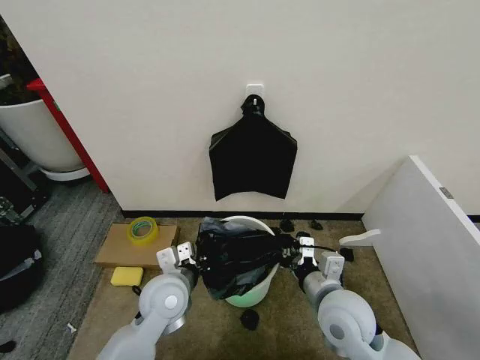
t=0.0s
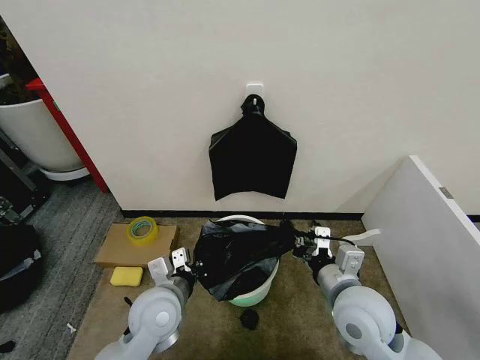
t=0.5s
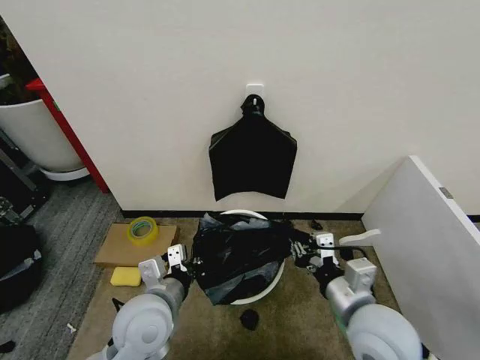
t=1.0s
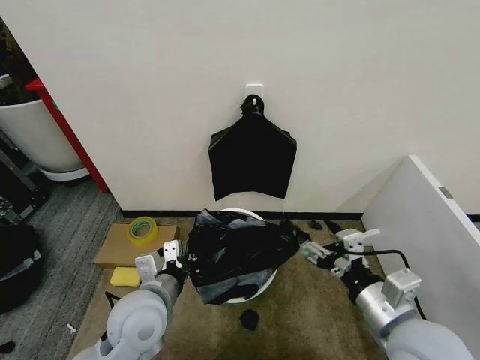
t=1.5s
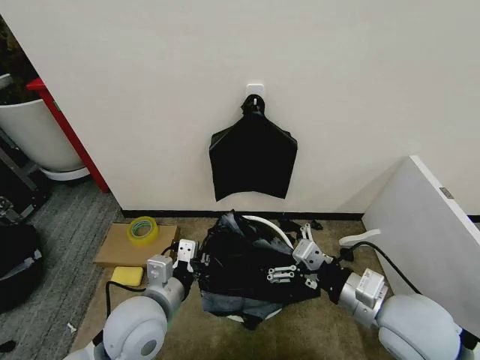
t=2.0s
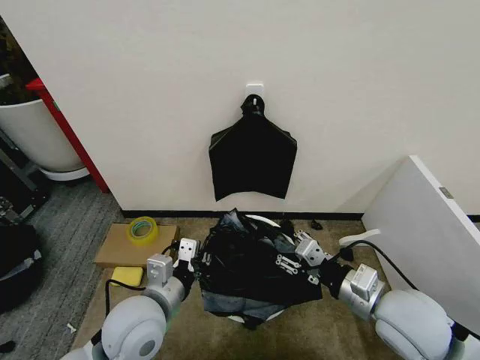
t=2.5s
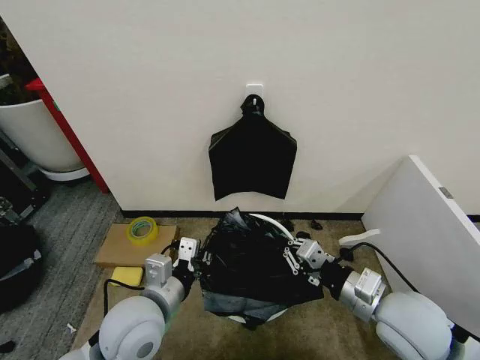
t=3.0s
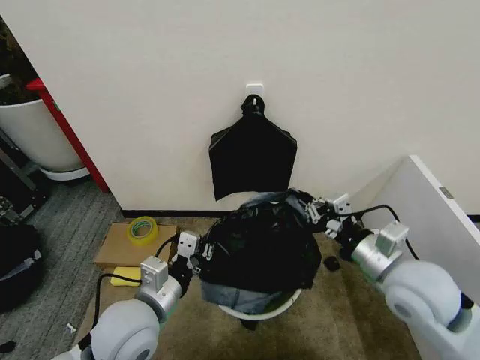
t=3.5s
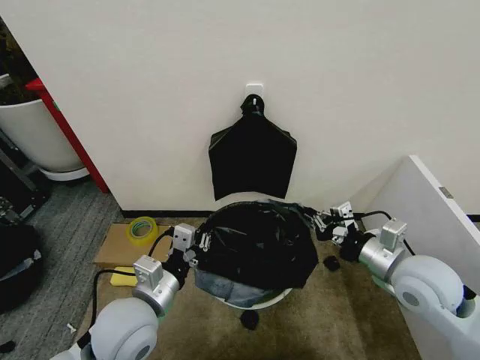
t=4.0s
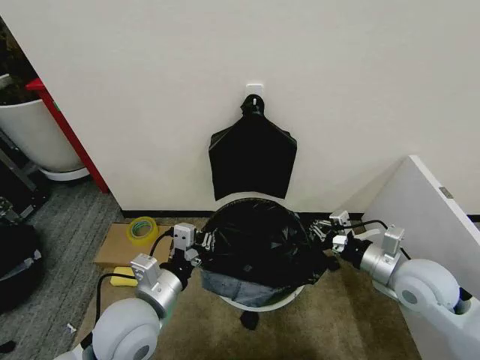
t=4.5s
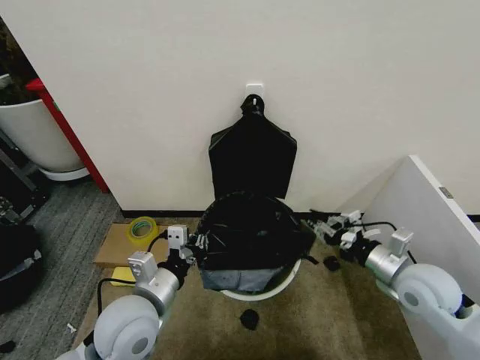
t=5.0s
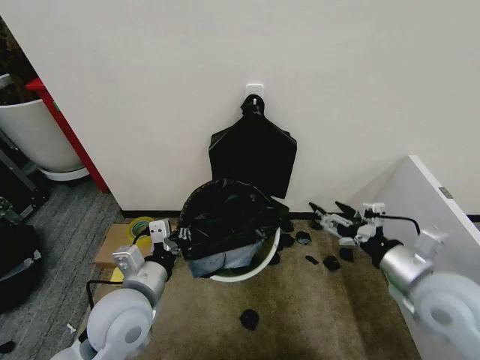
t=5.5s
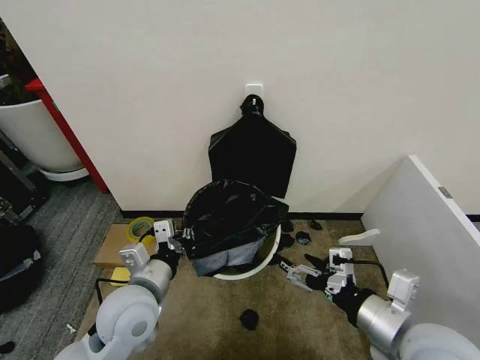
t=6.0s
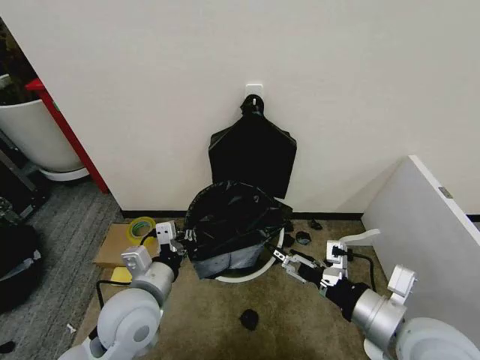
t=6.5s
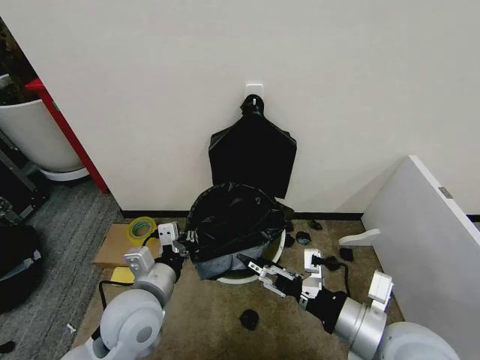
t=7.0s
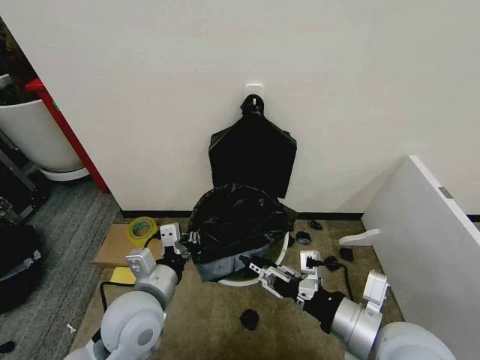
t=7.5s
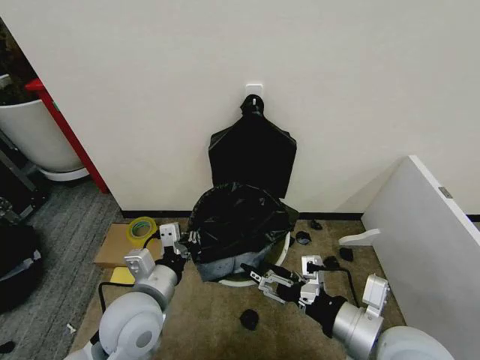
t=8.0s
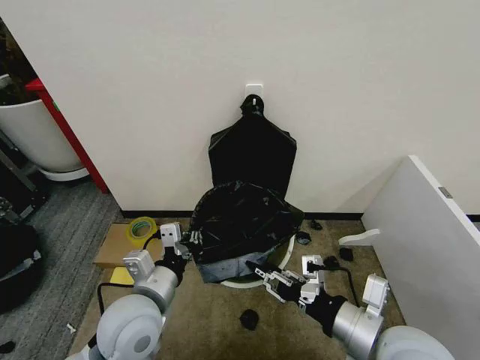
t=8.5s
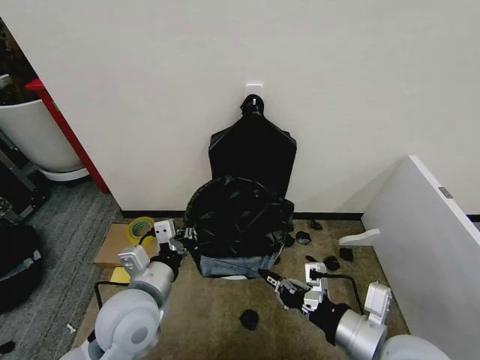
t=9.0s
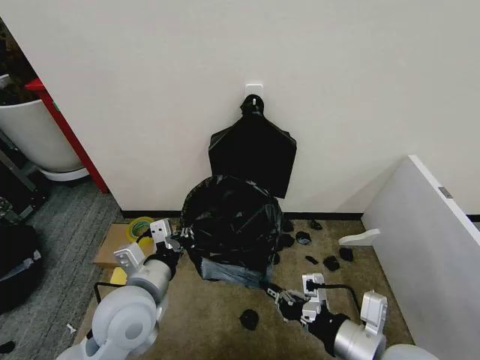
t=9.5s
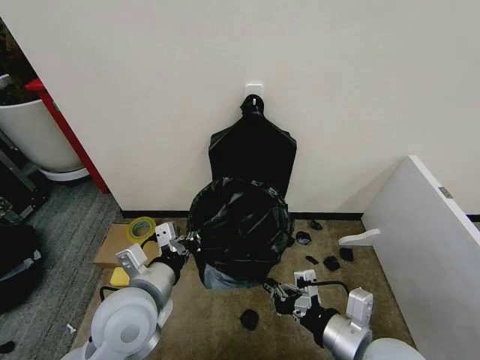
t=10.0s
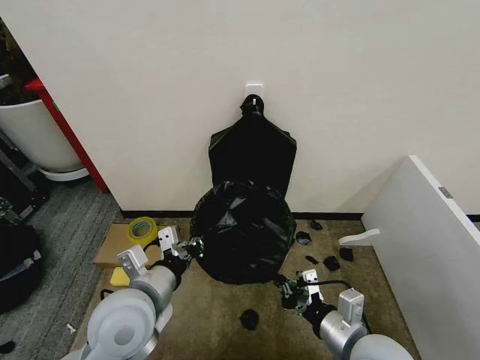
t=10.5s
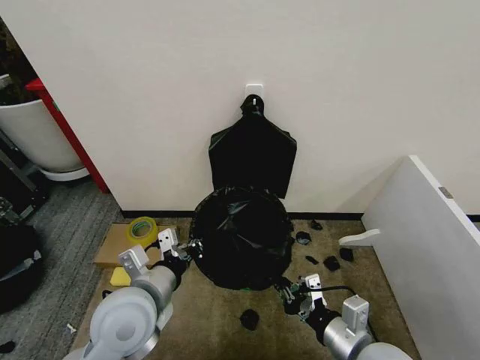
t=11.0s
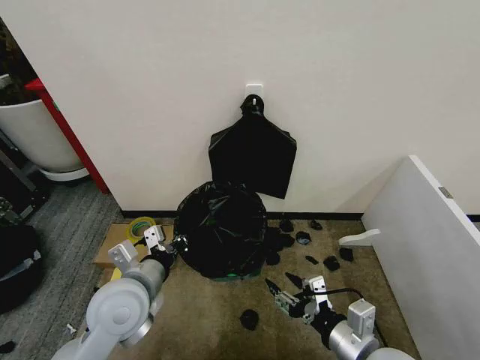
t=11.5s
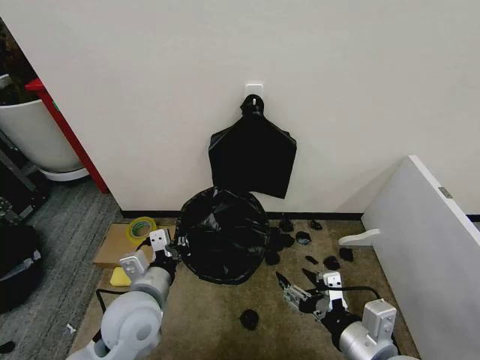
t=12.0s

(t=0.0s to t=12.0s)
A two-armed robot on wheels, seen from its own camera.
Task of the whole recording: Place the garbage bag over the trash bin.
t=0.0s - t=2.0s: The left gripper shifts about 10 cm backward and upward, while the right gripper heads upward and to the right, covering approximately 10 cm, and opens its fingers.
t=2.0s - t=4.0s: The right gripper is displaced forward and to the right by about 10 cm, and closes its fingers.
t=4.0s - t=6.0s: The right gripper goes approximately 15 cm backward and to the left, and opens.
t=6.0s - t=8.0s: The right gripper closes, then reopens.
t=8.0s - t=10.0s: The right gripper closes its fingers.
t=10.0s - t=12.0s: The right gripper opens.

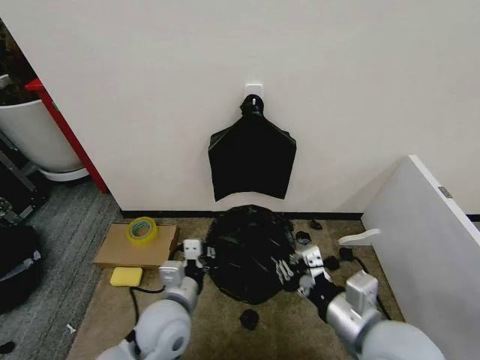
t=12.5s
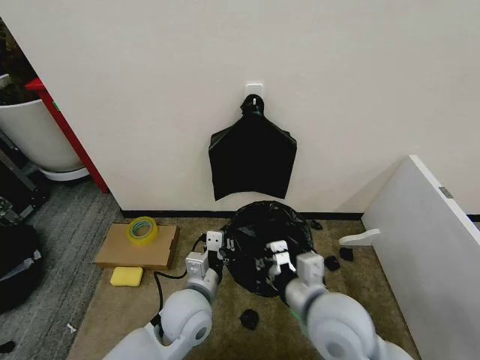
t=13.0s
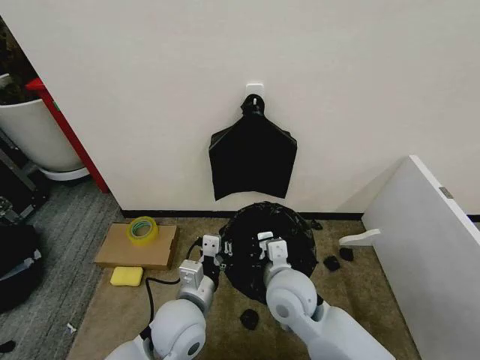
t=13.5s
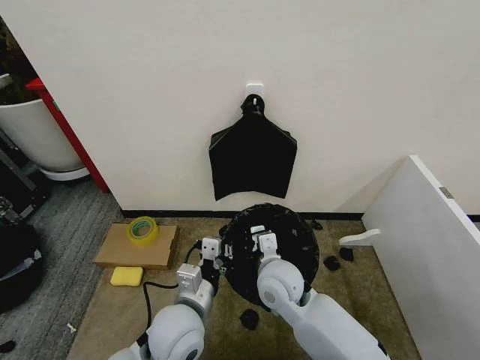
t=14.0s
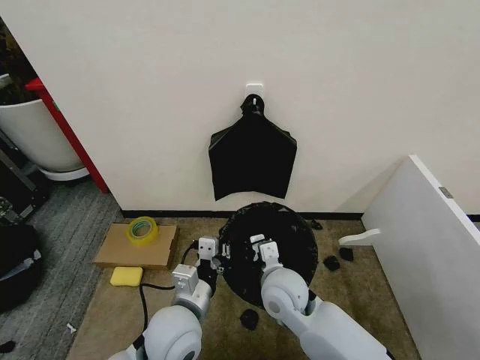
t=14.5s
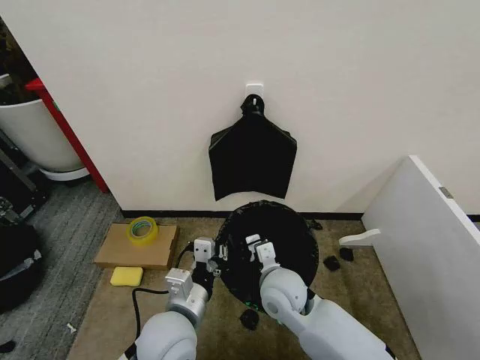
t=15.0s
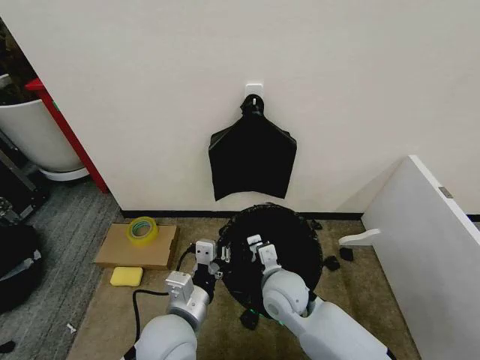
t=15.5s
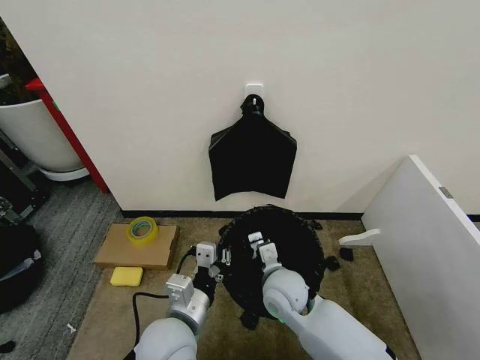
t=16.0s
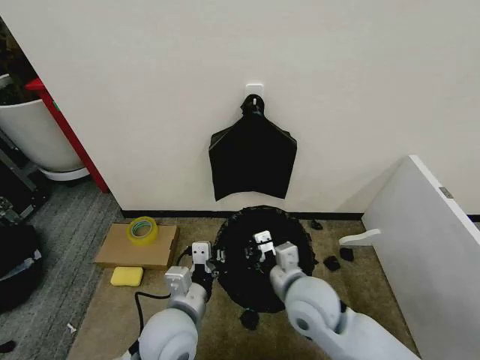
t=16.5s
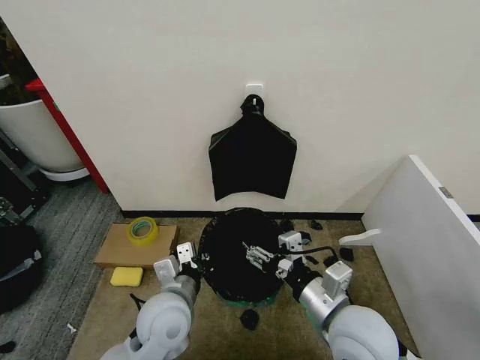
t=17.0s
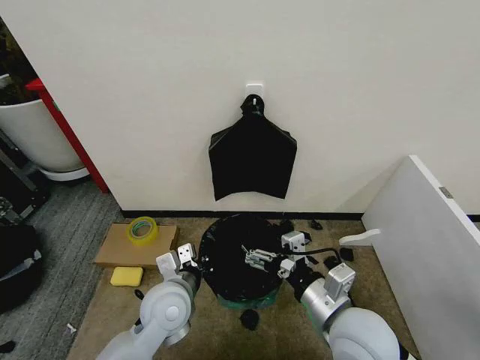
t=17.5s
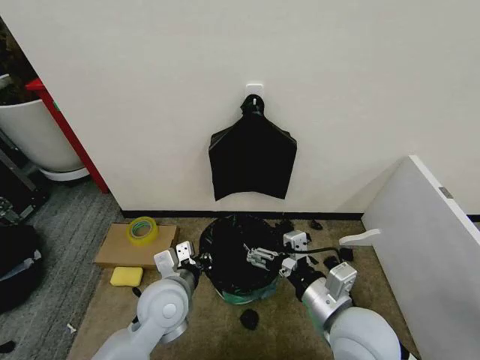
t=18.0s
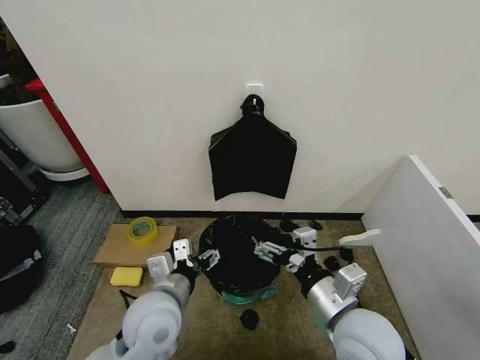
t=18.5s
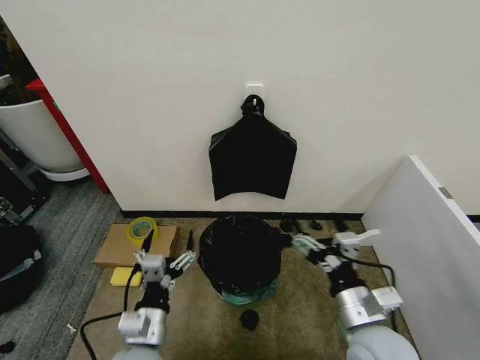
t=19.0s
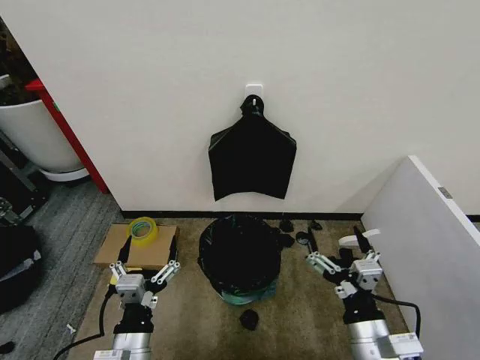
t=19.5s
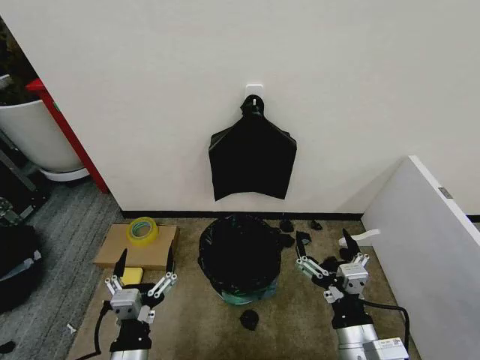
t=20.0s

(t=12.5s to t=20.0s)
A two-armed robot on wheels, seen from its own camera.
Task of the whole recording: Place the garbage bag over the trash bin.
t=12.5s - t=14.5s: The right gripper travels forward, to the left and downward by roughly 20 cm.
t=14.5s - t=16.5s: The grippers stay close to where they were, moving slightly.
t=16.5s - t=18.0s: The left gripper moves forward, roughly 5 cm, while the right gripper heads backward, to the right and upward, covering approximately 15 cm, and opens.
t=18.0s - t=20.0s: The left gripper travels backward by about 15 cm, and opens, while the right gripper goes about 10 cm backward and downward.
